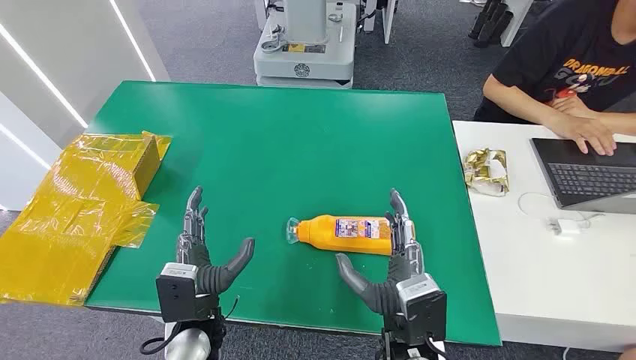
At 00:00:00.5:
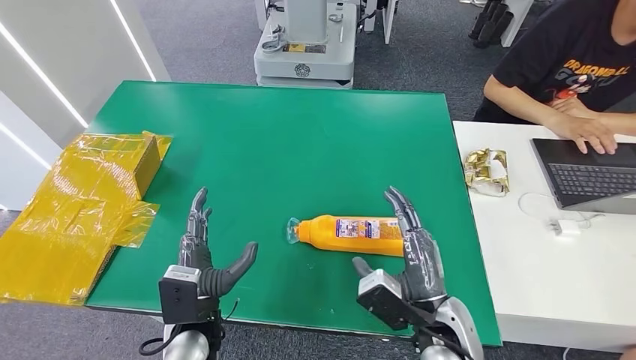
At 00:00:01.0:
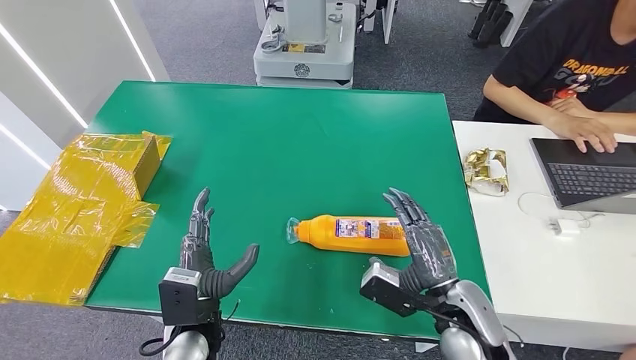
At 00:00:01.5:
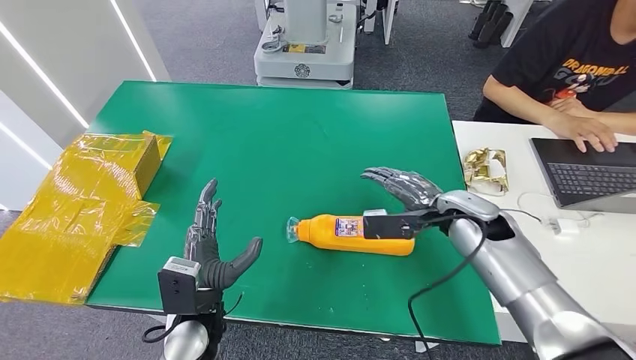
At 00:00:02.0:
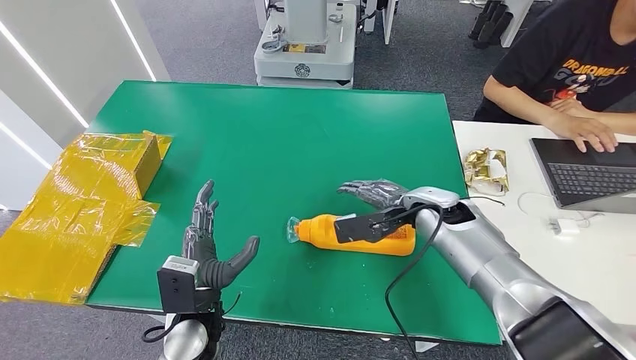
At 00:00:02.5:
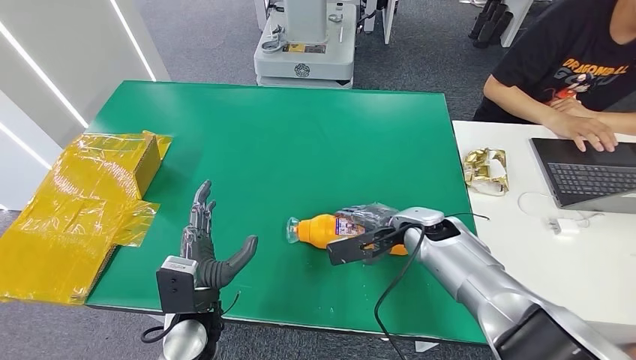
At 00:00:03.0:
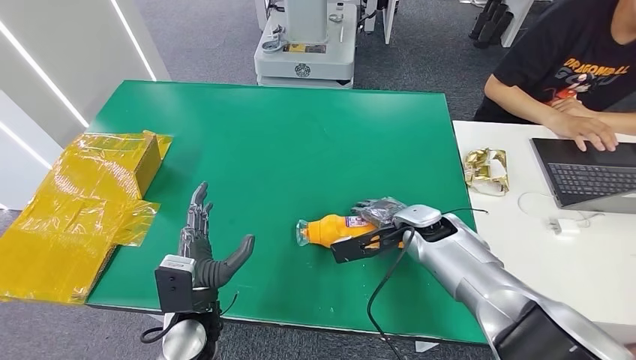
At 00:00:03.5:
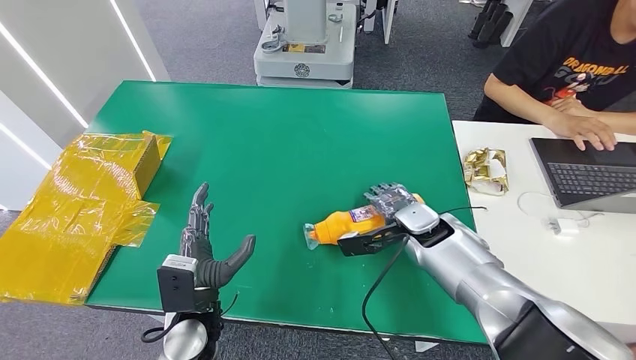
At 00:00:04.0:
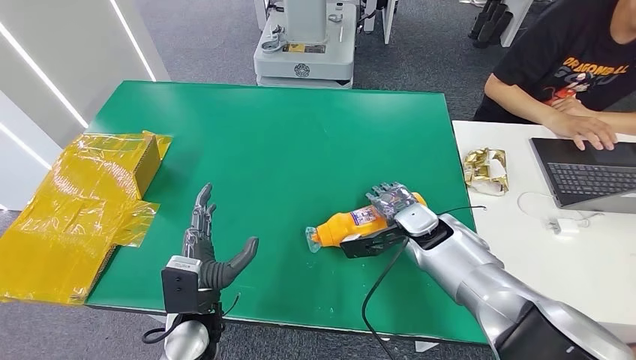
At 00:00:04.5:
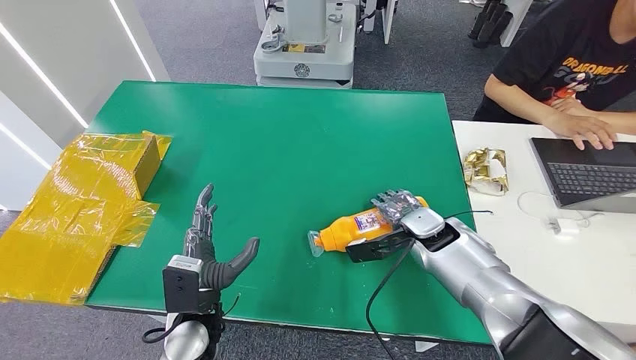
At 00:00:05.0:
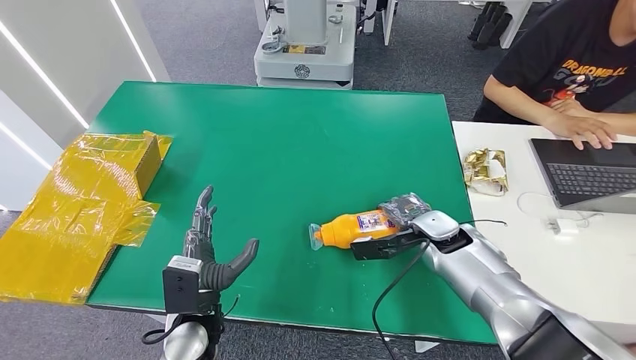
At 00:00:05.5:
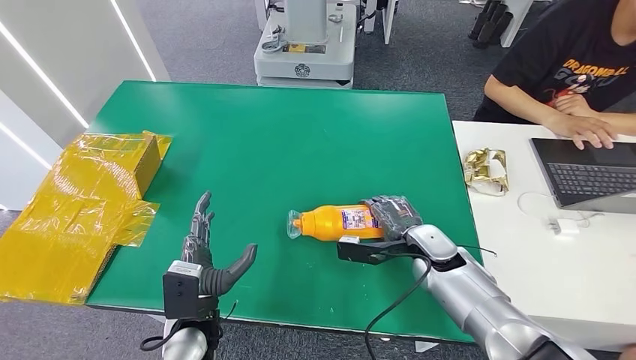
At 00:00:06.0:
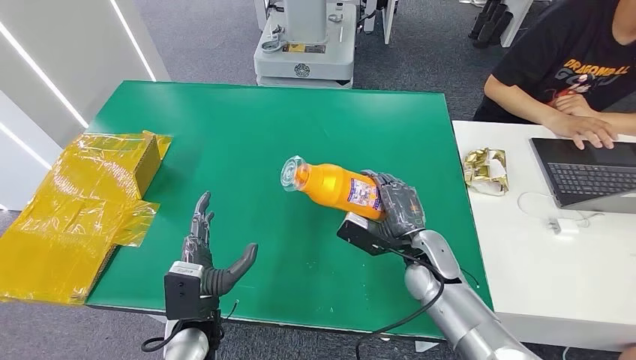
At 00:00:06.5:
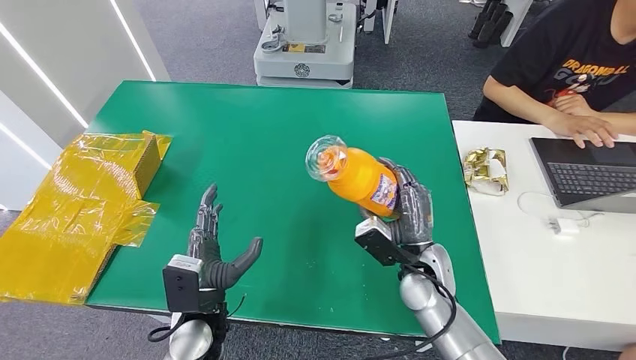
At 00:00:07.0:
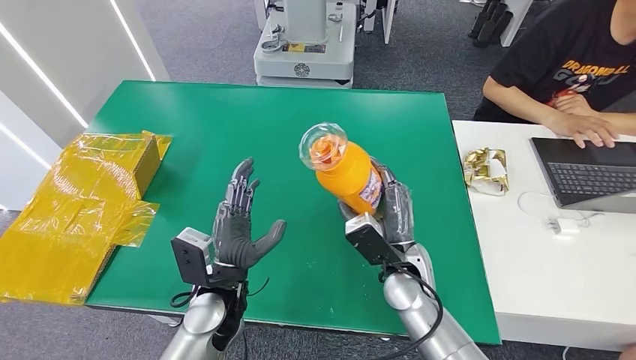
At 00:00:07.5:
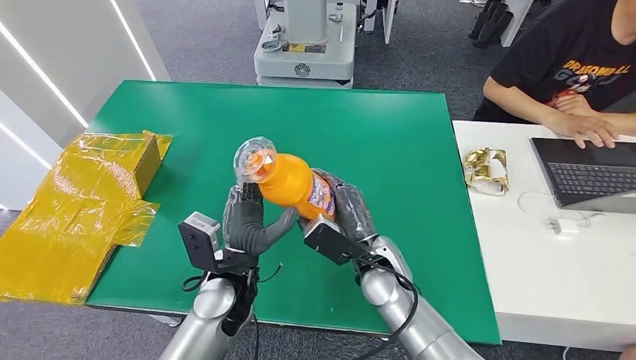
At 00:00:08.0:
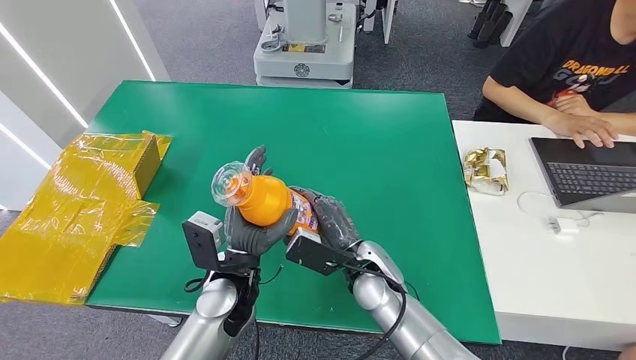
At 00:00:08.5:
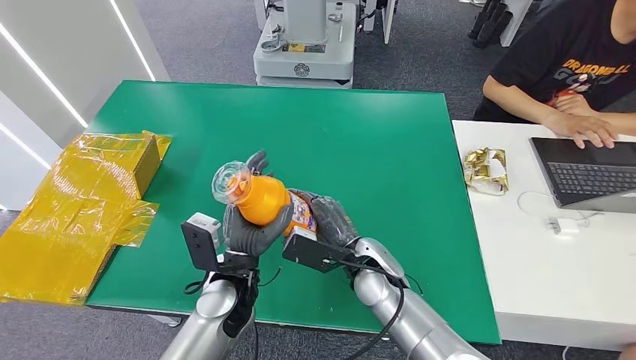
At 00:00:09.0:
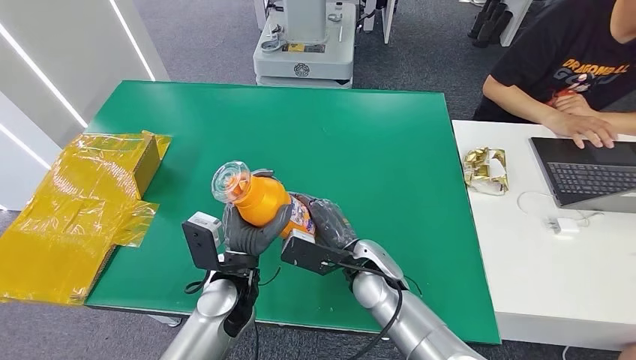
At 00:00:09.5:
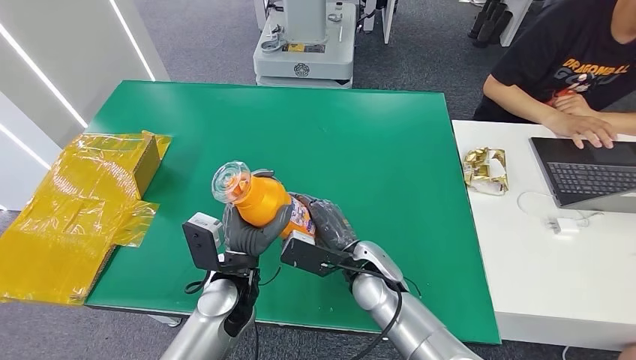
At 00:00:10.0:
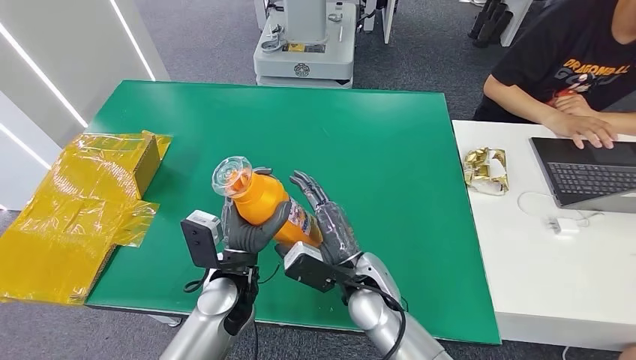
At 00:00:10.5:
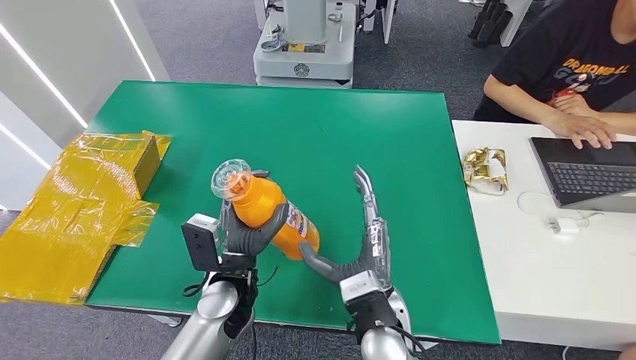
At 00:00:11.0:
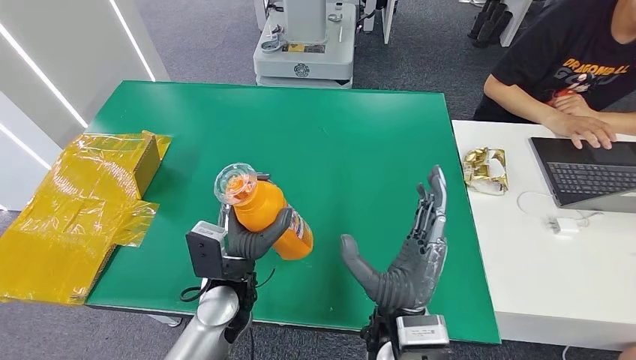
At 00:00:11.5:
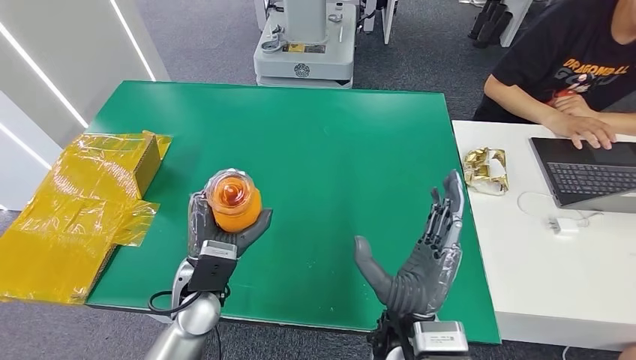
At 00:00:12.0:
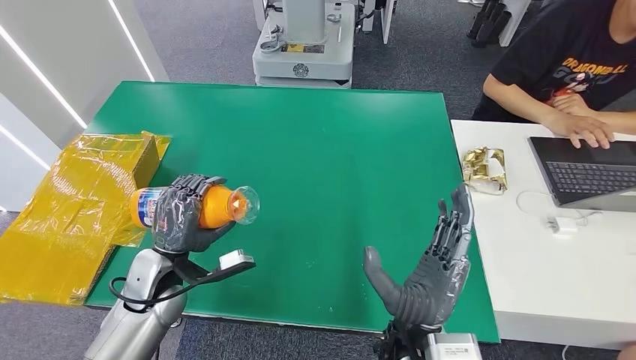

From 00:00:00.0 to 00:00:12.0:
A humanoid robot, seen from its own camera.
Step, from 00:00:00.0 to 00:00:06.0: Pick up the bottle from the table.
From 00:00:04.0 to 00:00:06.0: The right hand goes approximately 5 cm backward.
From 00:00:06.0 to 00:00:08.0: The left hand travels forward and to the right by about 10 cm; the right hand goes some 10 cm to the left.
From 00:00:08.0 to 00:00:10.0: The hands move only a little.
From 00:00:10.0 to 00:00:12.0: The right hand shifts some 10 cm backward; the left hand shifts roughly 15 cm to the left.

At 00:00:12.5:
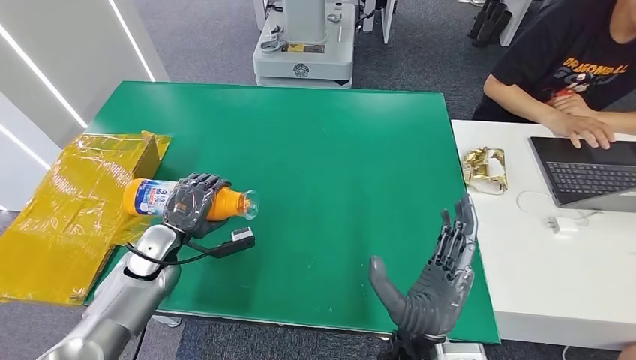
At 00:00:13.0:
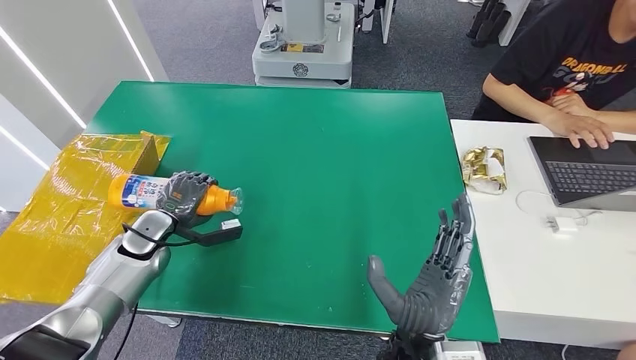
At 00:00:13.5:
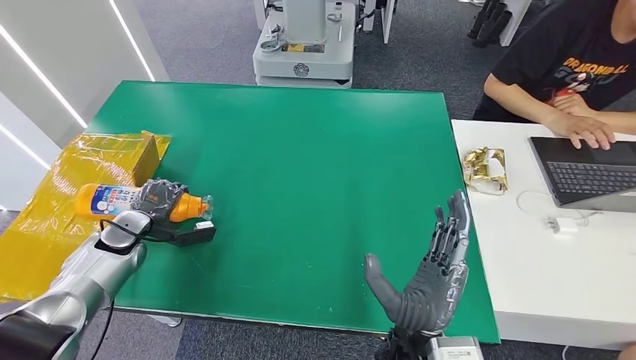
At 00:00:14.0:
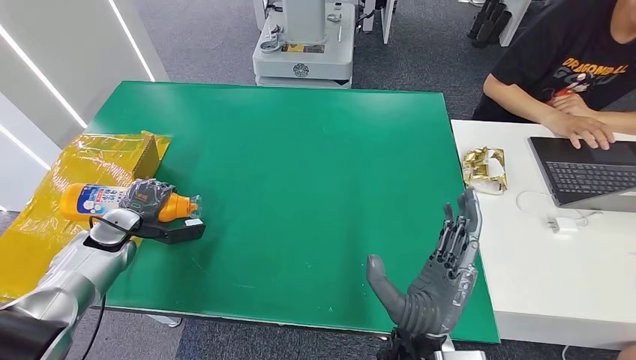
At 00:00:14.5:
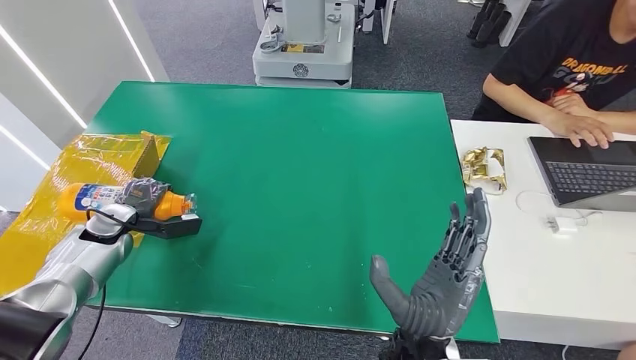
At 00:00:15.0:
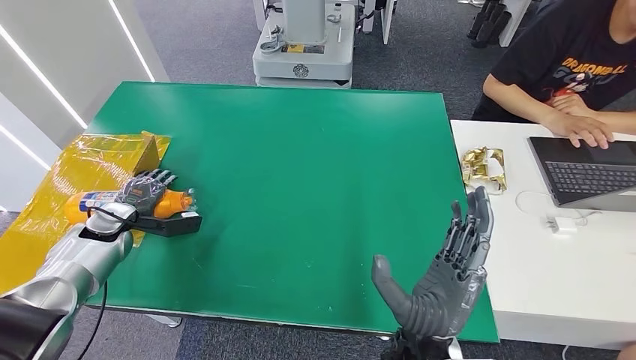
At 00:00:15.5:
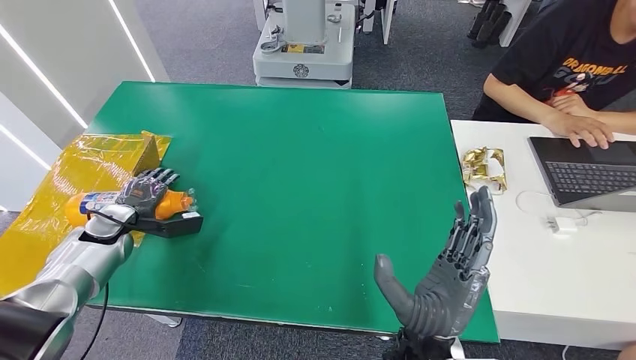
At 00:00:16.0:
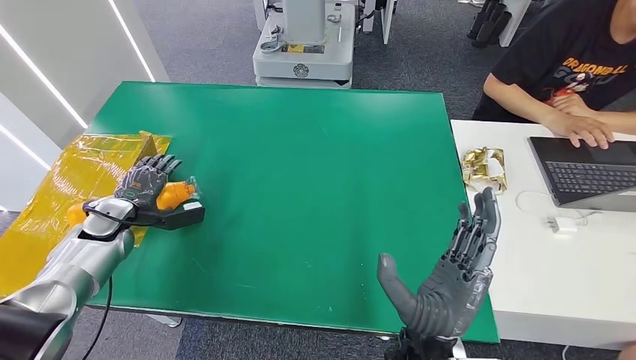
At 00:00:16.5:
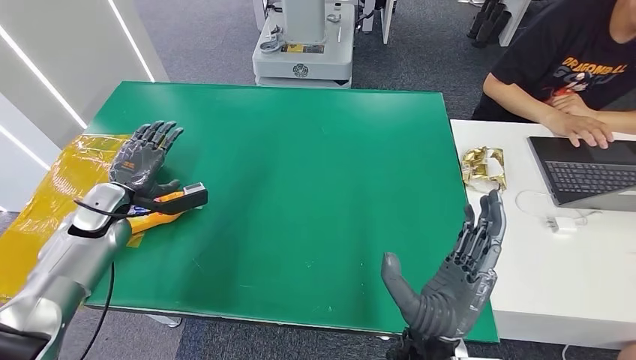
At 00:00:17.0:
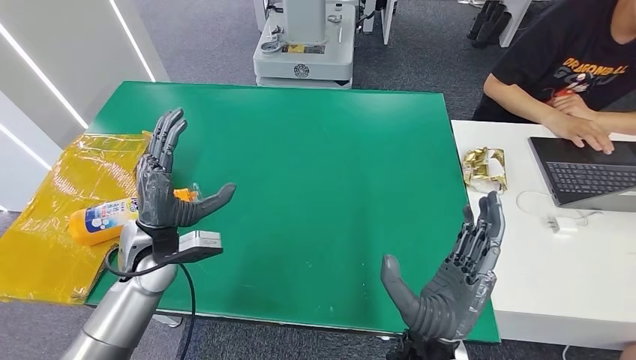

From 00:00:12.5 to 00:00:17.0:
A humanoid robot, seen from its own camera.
Step, from 00:00:12.5 to 00:00:17.0: Turn the bottle to the front side.
From 00:00:12.5 to 00:00:14.5: The left hand travels to the left by approximately 15 cm.
From 00:00:14.5 to 00:00:17.0: The left hand is displaced to the right and upward by roughly 20 cm.
